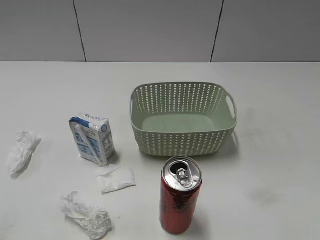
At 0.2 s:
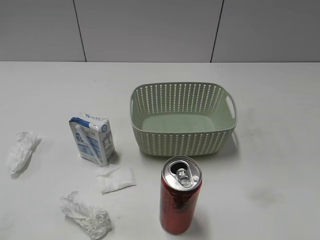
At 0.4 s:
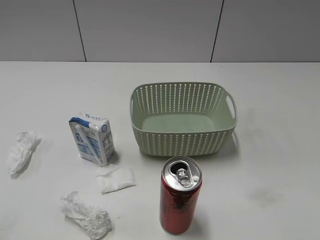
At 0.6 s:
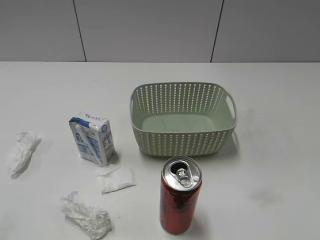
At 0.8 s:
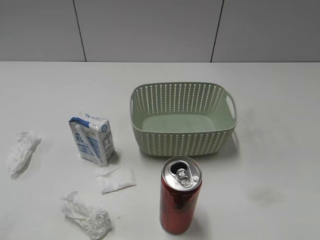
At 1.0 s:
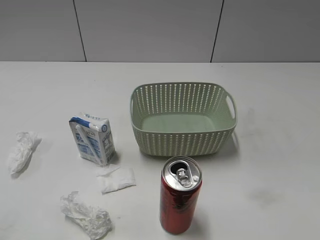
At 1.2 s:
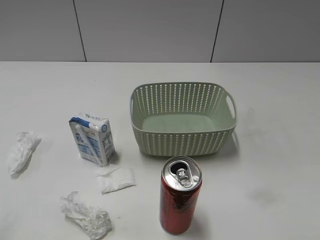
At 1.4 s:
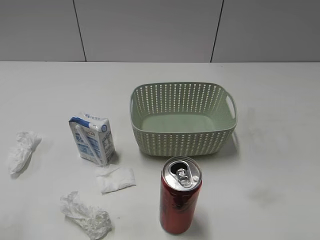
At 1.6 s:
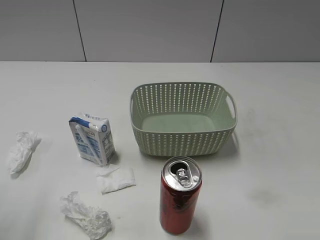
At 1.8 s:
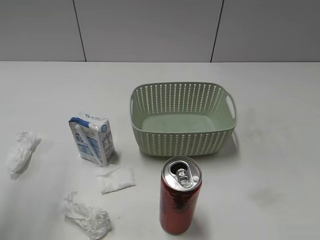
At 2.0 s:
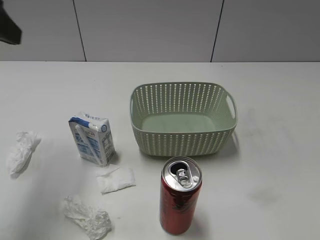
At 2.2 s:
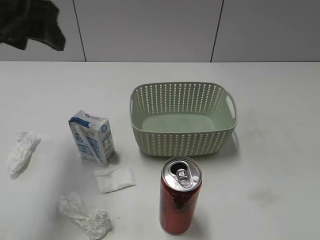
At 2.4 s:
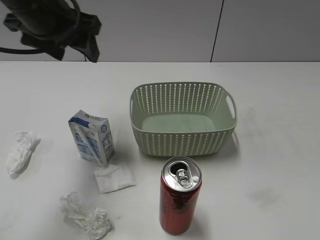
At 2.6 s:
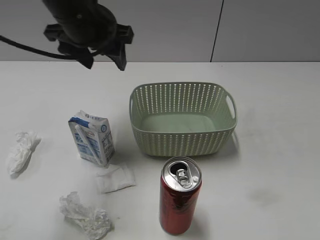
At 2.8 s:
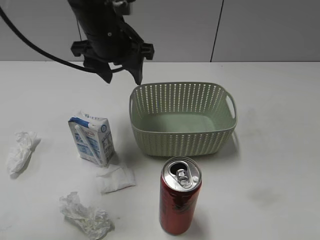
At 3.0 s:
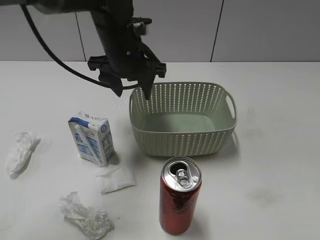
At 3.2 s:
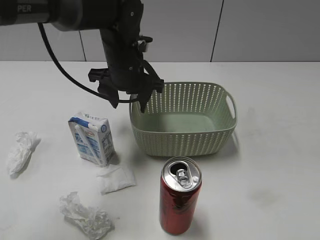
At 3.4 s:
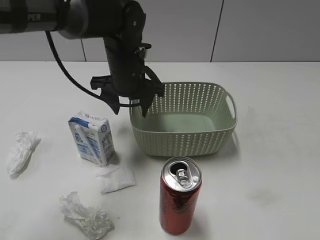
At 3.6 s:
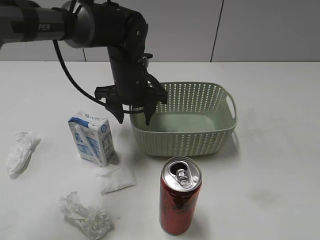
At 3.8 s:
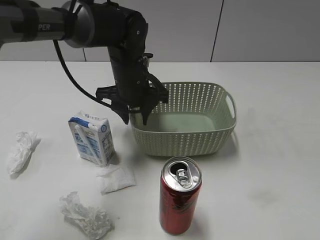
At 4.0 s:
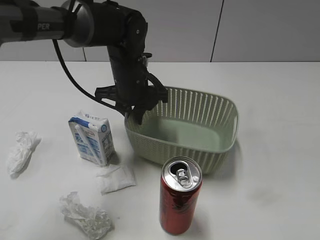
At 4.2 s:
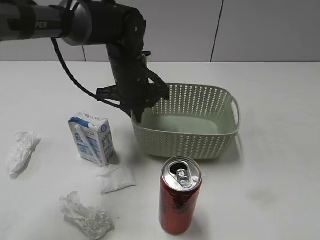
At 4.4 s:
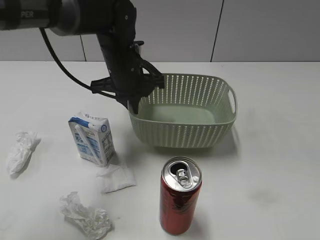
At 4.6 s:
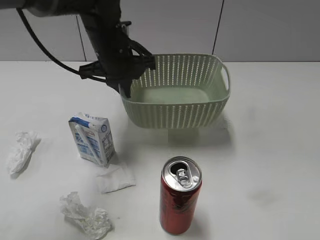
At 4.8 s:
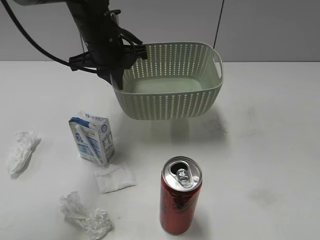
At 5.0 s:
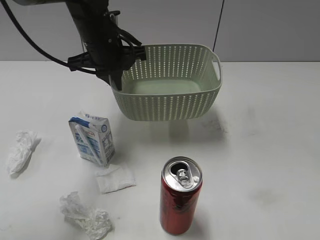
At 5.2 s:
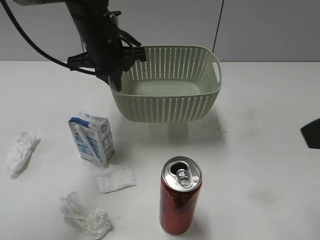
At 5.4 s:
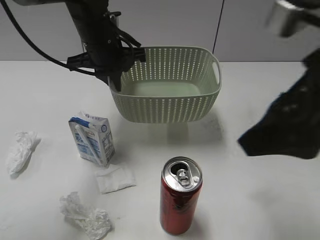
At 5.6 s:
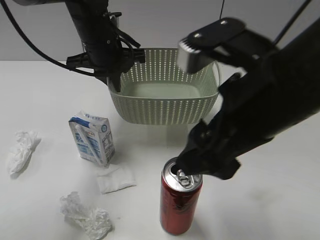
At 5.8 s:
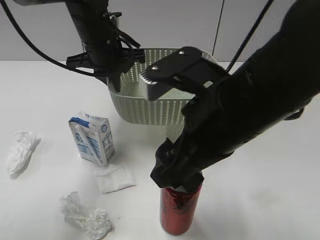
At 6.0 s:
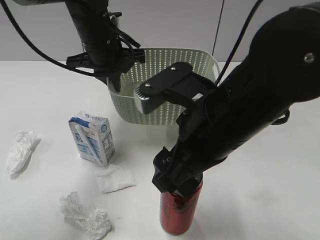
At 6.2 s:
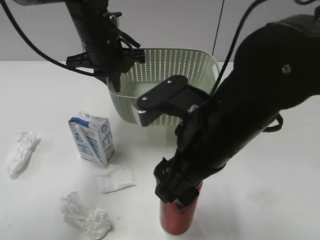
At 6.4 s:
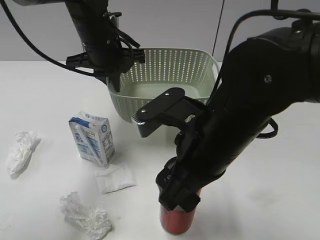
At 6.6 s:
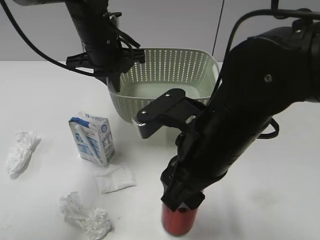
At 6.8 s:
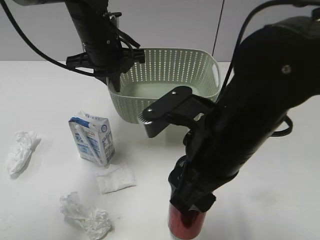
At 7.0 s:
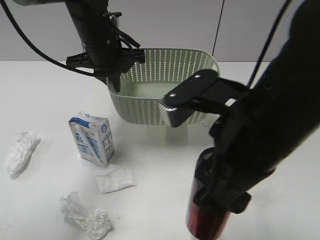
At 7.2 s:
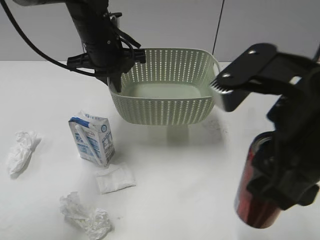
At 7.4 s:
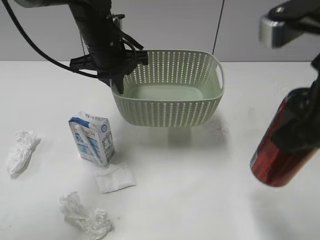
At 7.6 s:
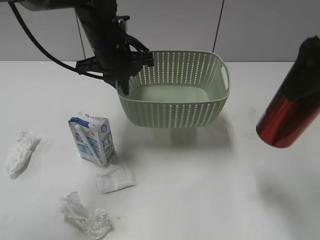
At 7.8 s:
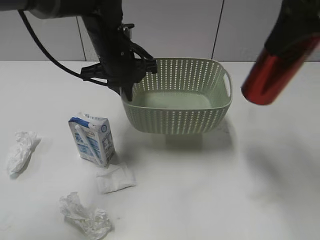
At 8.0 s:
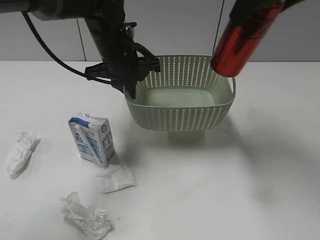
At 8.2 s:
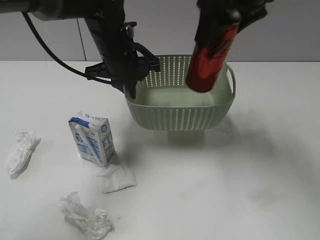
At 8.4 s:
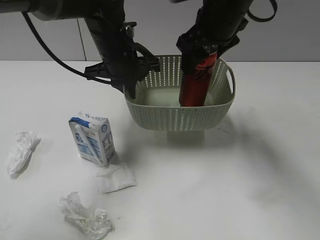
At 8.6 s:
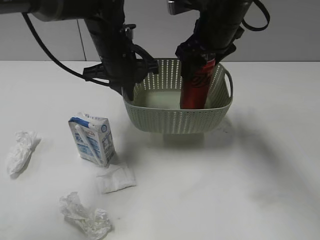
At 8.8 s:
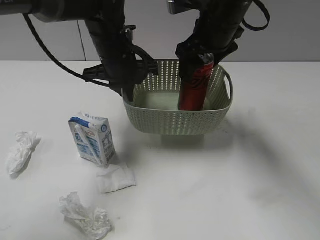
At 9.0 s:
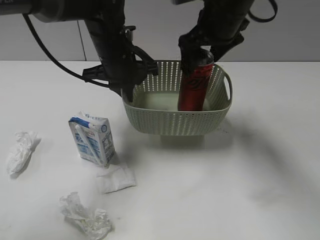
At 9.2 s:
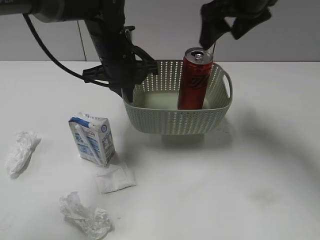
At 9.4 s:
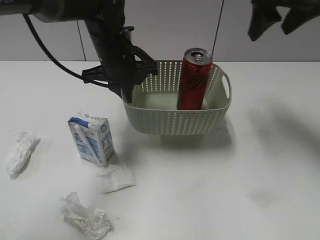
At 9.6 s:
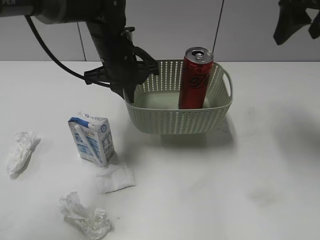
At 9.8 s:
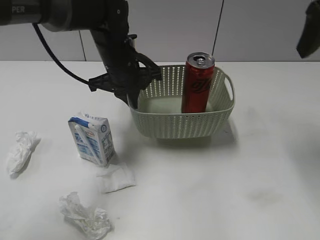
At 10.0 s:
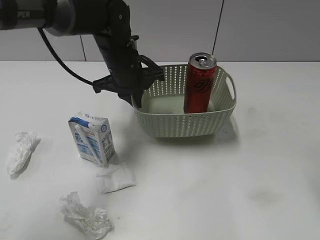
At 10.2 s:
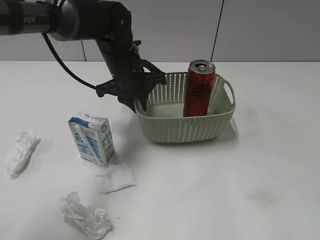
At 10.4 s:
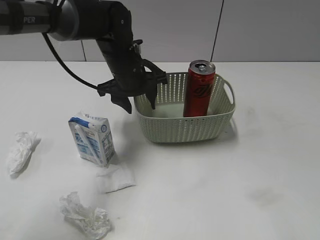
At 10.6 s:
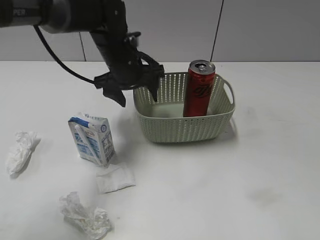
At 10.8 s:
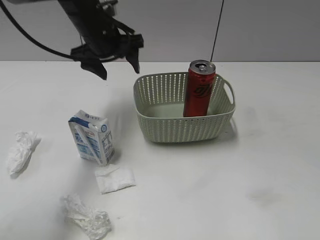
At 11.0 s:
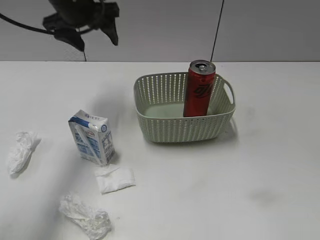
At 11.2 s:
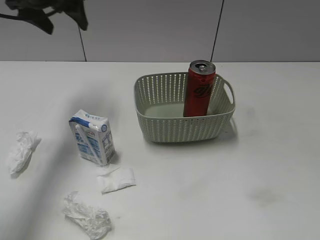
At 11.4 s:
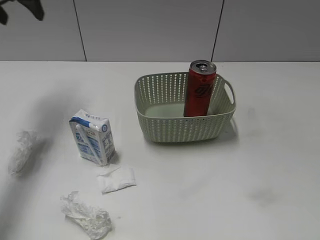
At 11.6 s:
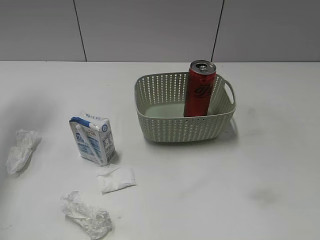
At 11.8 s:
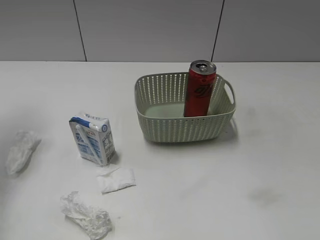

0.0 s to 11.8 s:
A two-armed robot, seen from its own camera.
Step, 2.0 to 4.2 s: Grasp the basket with left gripper.
Step, 4.4 to 5.0 s: Lift the basket with left gripper.
Step, 5.2 to 6.6 s: Grasp the cola can with right gripper.
Step, 6.8 to 9.2 s: Place the cola can in the basket with right gripper.
1.4 to 3.0 s: The left gripper goes roughly 40 cm forward, to the right and downward.
3.0 to 4.4 s: The left gripper closes up.
4.4 to 6.0 s: The left gripper shifts by about 5 cm. Meanwhile the right gripper moves to the left and forward, about 30 cm, and opens.
6.0 to 7.4 s: The right gripper moves to the right and upward, roughly 15 cm, and closes its fingers.
7.4 to 8.8 s: The right gripper is displaced forward by some 20 cm, and opens.
8.8 to 10.4 s: The left gripper opens, while the right gripper travels backward and to the right by approximately 35 cm.
10.4 to 11.8 s: The left gripper moves to the left and upward, some 35 cm; the right gripper travels backward by some 10 cm.

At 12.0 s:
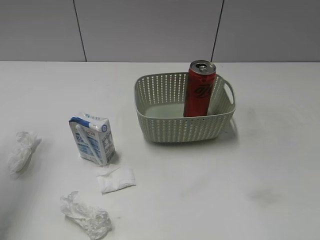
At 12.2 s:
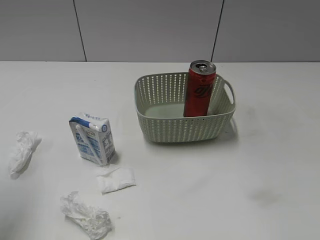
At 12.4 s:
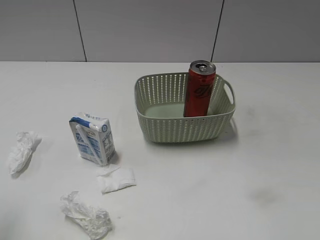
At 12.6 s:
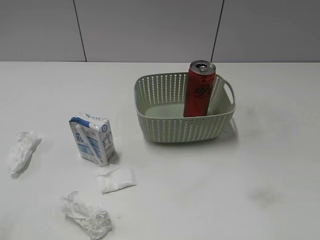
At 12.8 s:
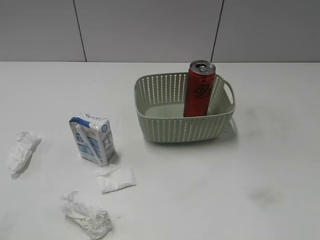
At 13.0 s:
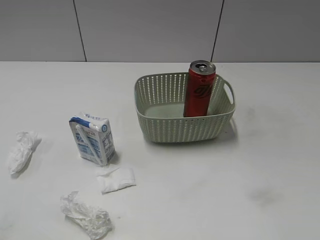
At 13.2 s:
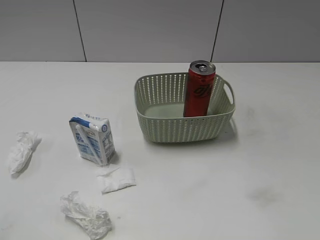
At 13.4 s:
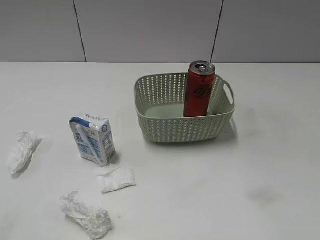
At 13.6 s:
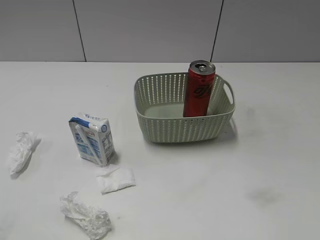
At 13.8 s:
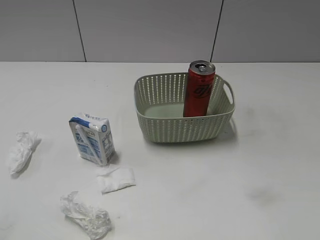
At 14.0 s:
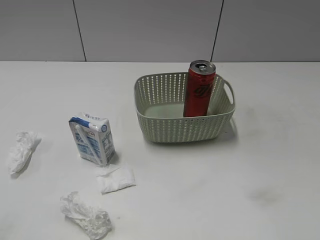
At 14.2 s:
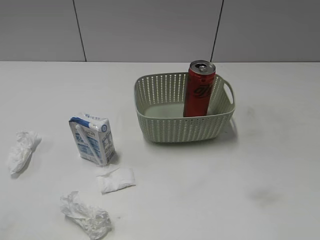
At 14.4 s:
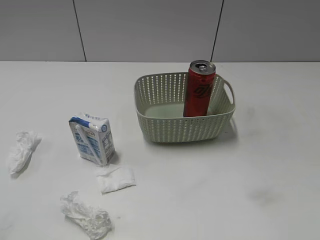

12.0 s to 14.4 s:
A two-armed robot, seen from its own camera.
12.0 to 13.2 s: The left gripper is displaced backward by about 25 cm.
13.2 to 14.4 s: Both grippers stay about where they are.

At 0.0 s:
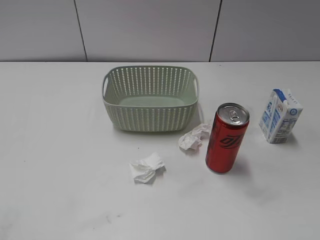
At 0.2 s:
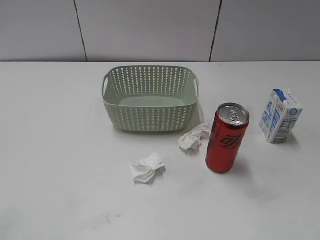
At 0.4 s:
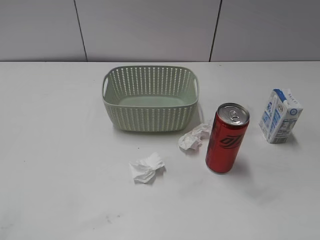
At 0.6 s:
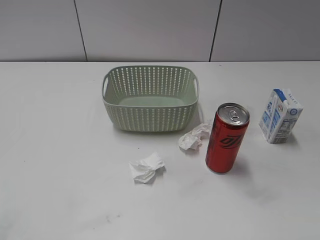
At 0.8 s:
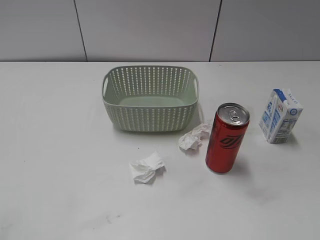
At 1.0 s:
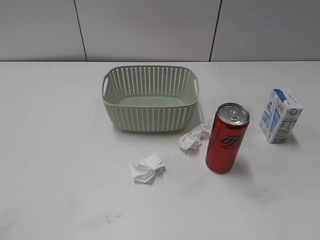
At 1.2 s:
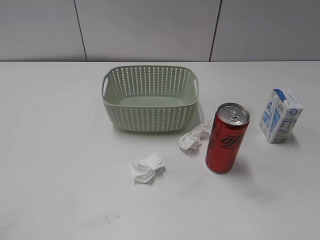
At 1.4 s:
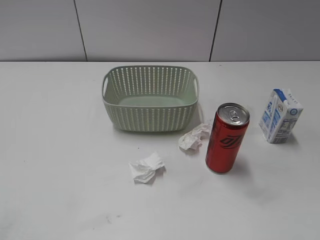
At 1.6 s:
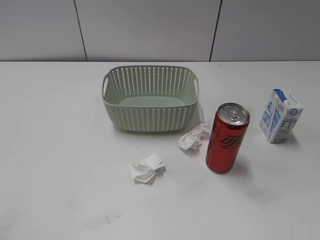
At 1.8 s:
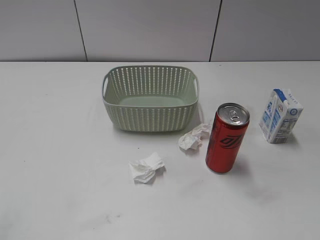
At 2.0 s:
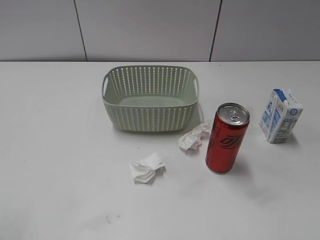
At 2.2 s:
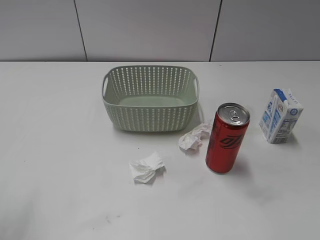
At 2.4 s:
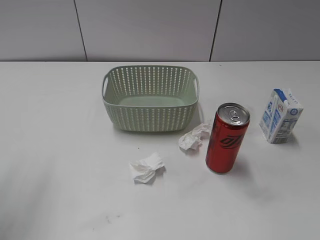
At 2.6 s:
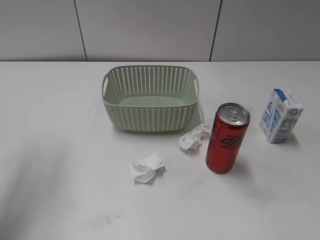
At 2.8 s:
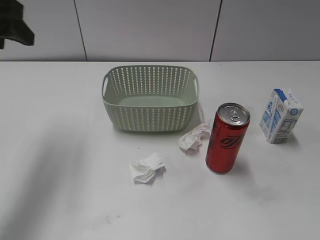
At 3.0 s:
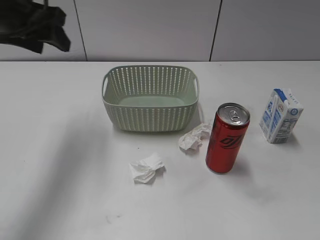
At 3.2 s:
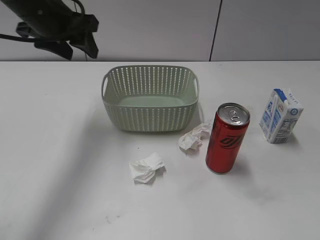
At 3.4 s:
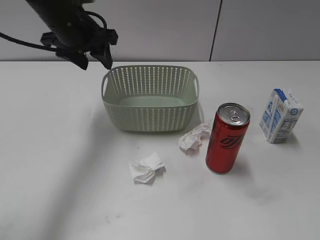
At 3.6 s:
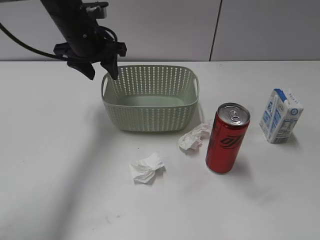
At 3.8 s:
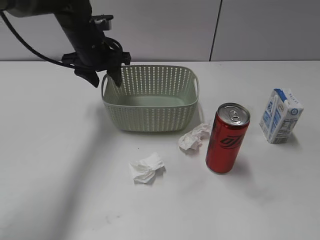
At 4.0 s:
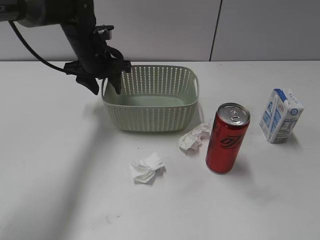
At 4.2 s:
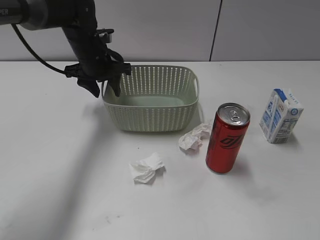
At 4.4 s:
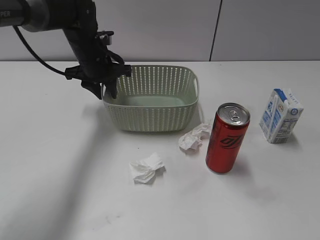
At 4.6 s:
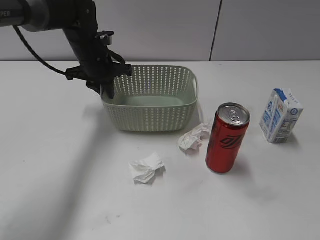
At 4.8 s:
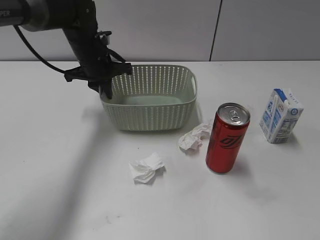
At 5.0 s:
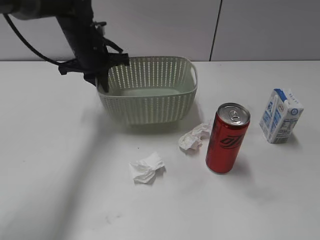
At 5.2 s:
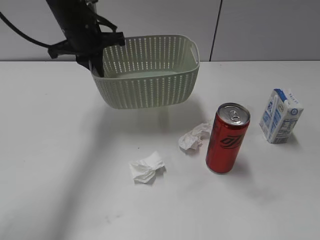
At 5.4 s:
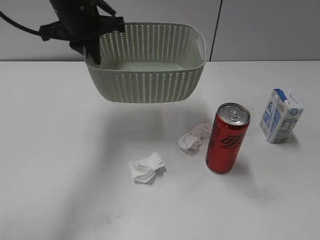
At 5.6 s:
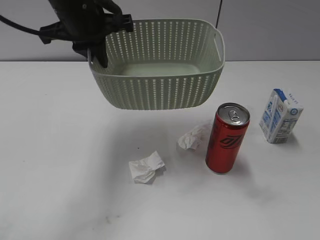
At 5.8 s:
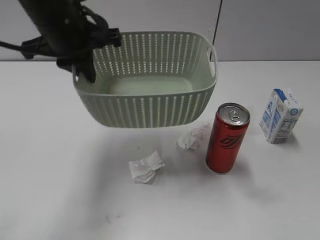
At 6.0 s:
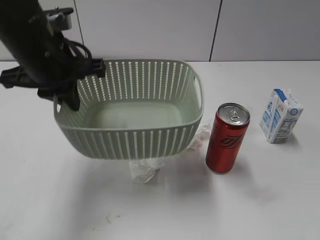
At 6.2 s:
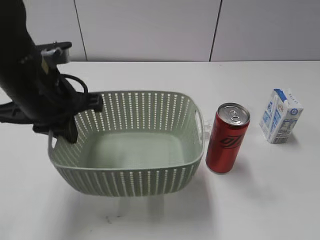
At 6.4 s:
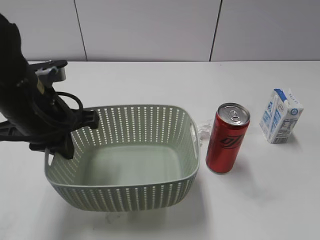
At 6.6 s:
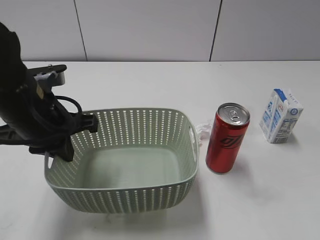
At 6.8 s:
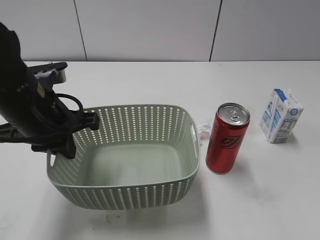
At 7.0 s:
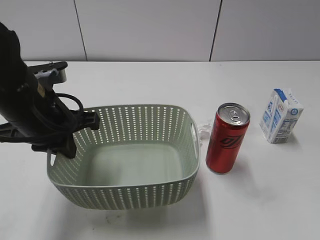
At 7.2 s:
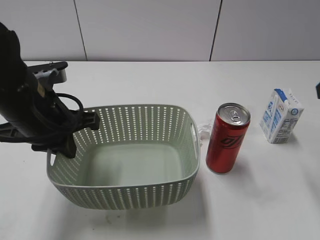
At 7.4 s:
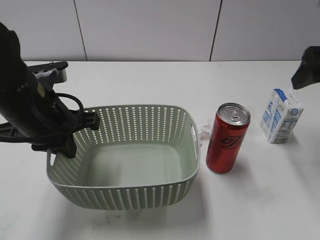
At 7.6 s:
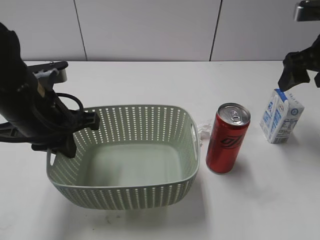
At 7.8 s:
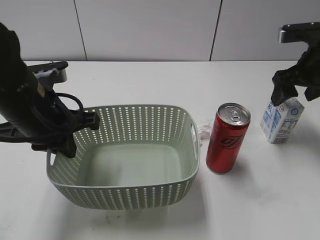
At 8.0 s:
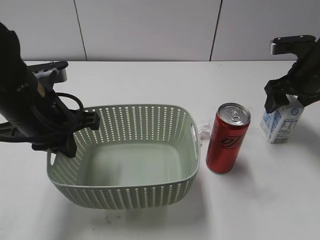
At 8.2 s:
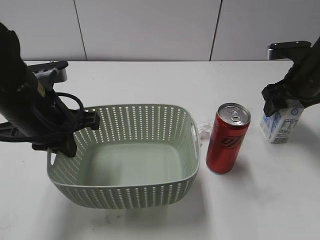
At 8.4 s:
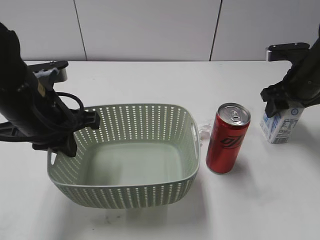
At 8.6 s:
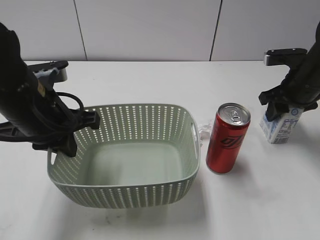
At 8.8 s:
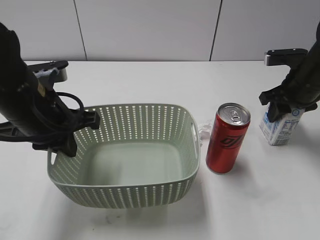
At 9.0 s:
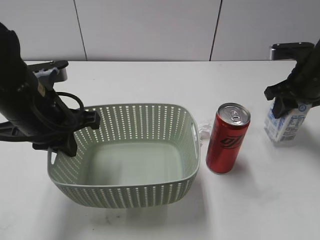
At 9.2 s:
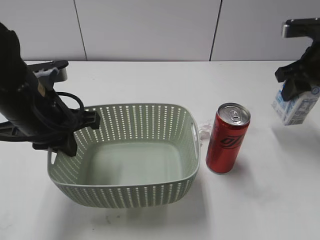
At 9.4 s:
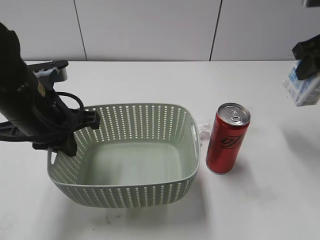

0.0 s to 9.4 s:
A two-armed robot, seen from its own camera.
Step, 2.8 to 4.8 s: Grasp the basket with left gripper.
Step, 5.0 to 6.2 s: Lift the basket with left gripper.
Step, 6.4 to 8.8 s: Grasp the milk with right gripper.
1.6 to 3.2 s: The left gripper travels forward by roughly 40 cm.
3.2 to 4.8 s: The left gripper travels downward and forward by roughly 15 cm, and closes its fingers.
4.8 to 6.2 s: The left gripper shifts some 20 cm backward.
6.2 to 7.8 s: The right gripper shifts roughly 35 cm forward.
7.8 to 9.4 s: The right gripper goes some 10 cm upward, and closes its fingers.
